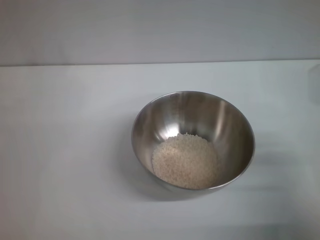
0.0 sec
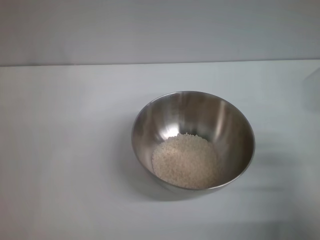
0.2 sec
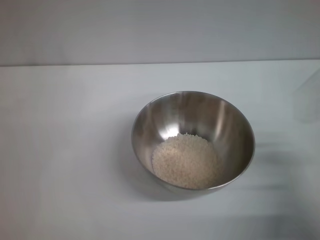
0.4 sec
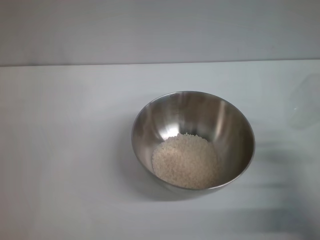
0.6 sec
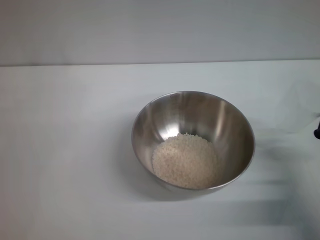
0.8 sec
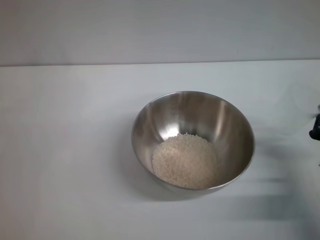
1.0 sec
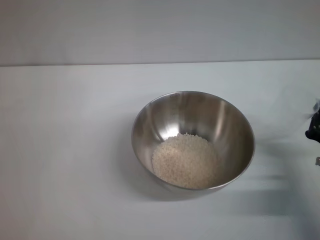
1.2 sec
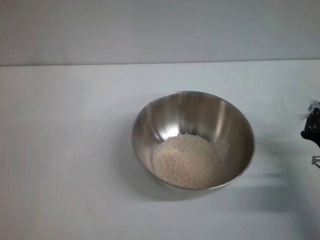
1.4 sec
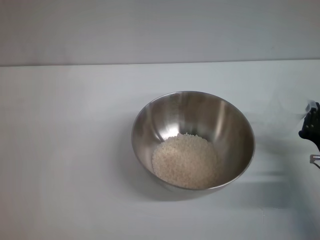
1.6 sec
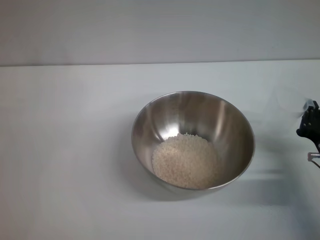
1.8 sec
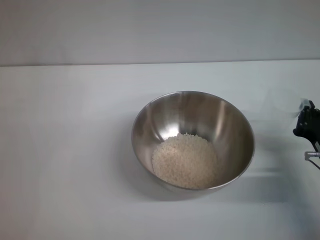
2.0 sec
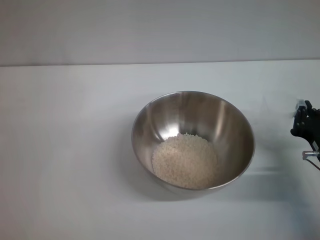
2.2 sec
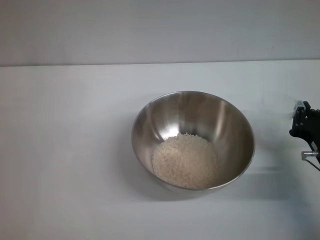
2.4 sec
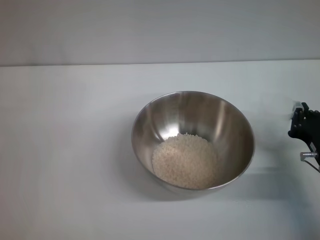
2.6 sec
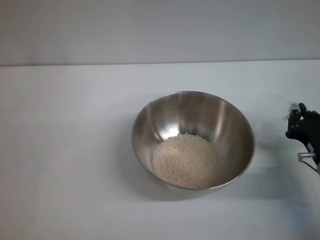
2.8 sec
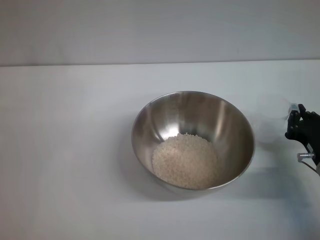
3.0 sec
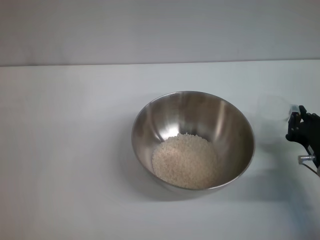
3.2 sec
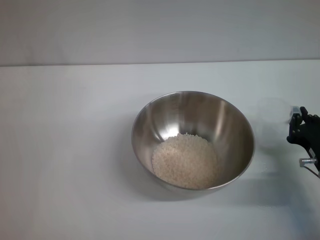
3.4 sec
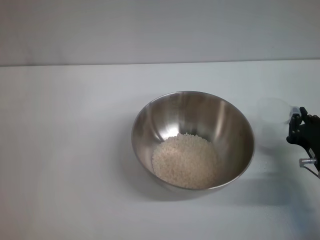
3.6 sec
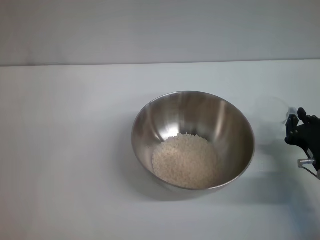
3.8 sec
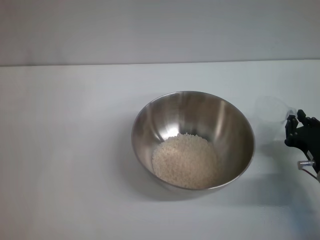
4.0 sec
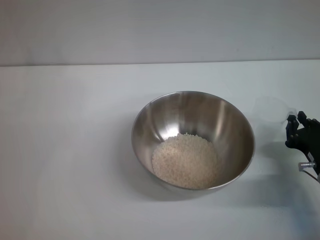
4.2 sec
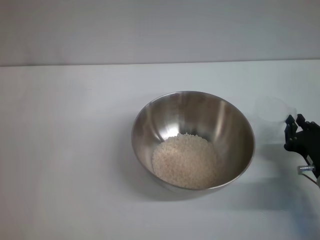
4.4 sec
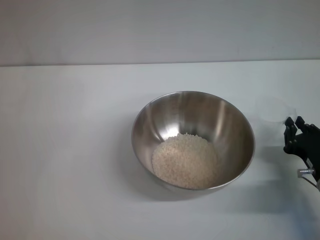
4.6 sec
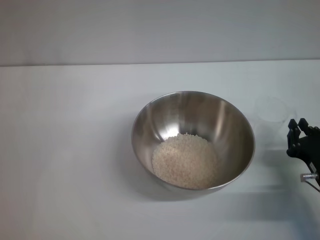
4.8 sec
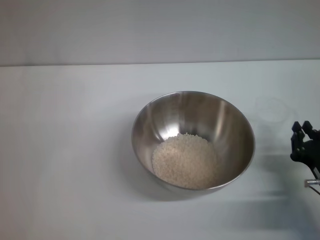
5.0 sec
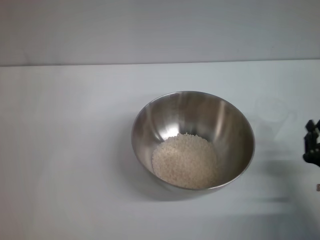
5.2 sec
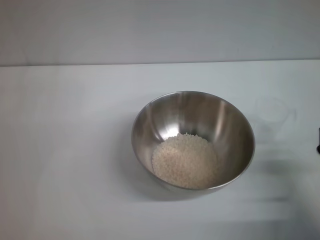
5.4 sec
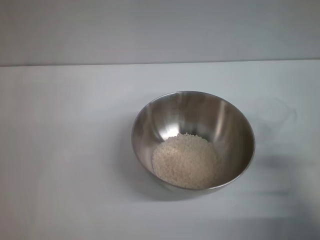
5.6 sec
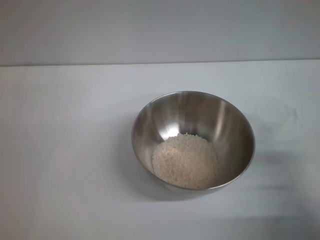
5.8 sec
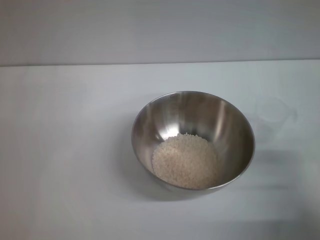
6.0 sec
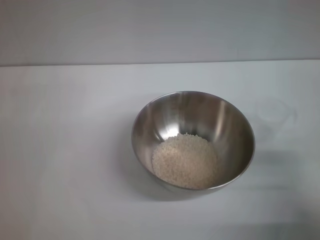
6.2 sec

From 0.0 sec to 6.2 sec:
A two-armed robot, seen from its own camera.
Task of the whole recording: Place the bowl in the middle of the table with one hand and pour the rice from the grain cup into it with the other hand.
Step, from 0.0 sec to 5.2 sec: Place the cup on the table with the right gripper.
From 0.0 sec to 1.6 sec: The right gripper ends up approximately 5 cm from where it was.
From 1.6 sec to 4.6 sec: The grippers make only small movements.
From 4.6 sec to 6.2 sec: The right gripper goes roughly 5 cm upward, and opens its fingers.

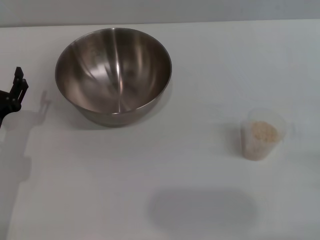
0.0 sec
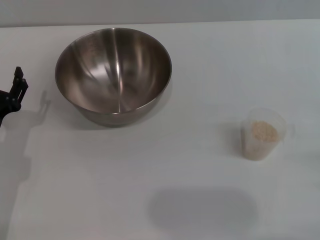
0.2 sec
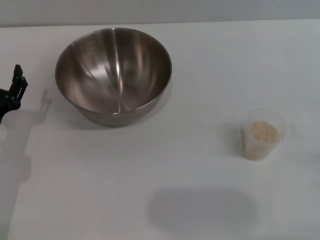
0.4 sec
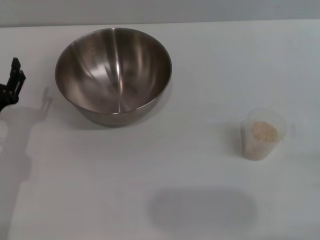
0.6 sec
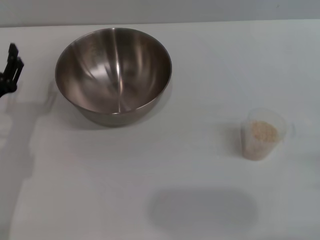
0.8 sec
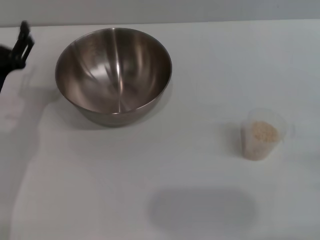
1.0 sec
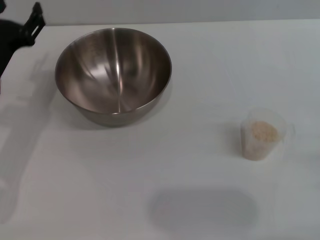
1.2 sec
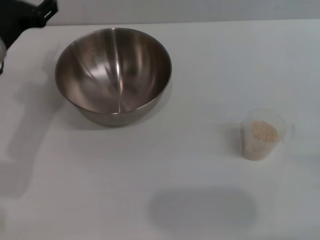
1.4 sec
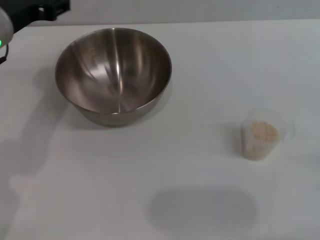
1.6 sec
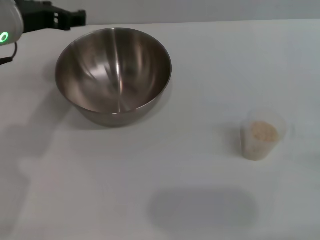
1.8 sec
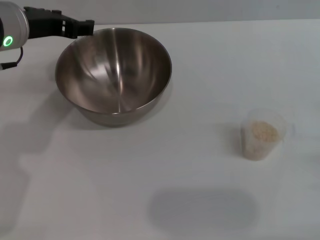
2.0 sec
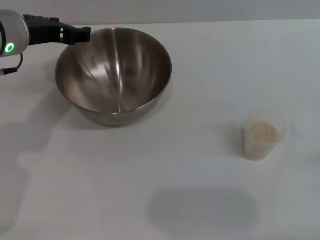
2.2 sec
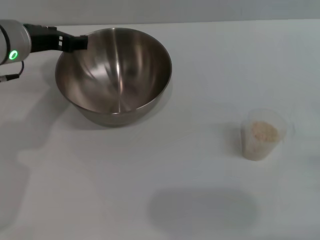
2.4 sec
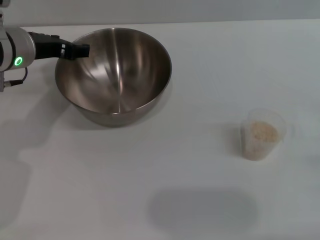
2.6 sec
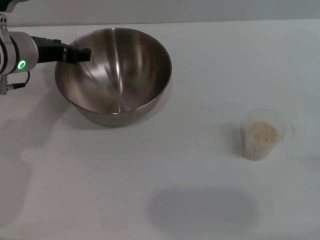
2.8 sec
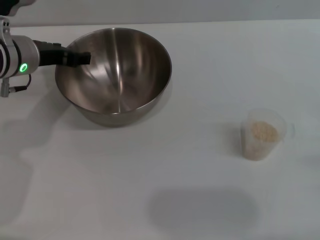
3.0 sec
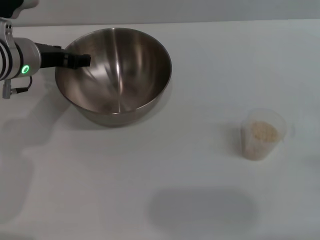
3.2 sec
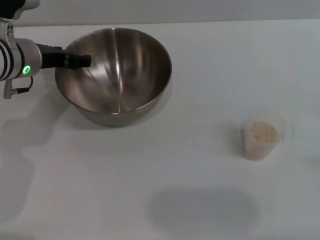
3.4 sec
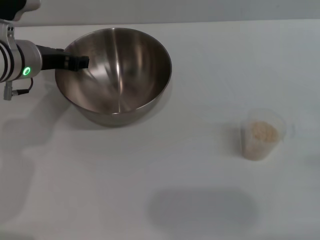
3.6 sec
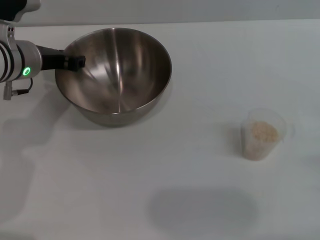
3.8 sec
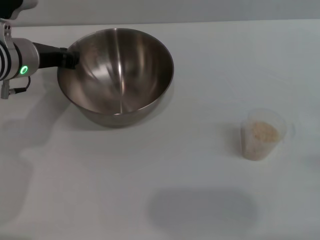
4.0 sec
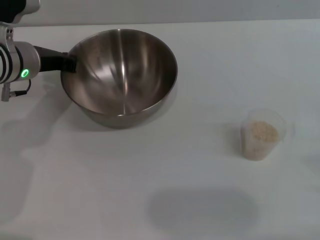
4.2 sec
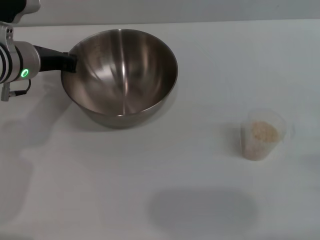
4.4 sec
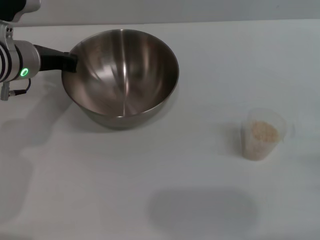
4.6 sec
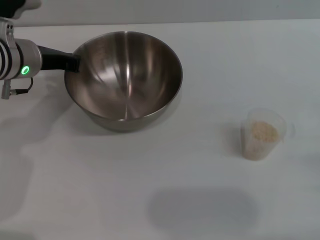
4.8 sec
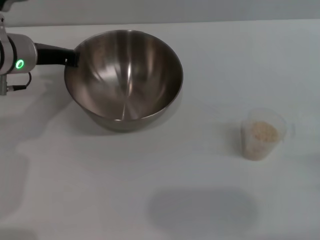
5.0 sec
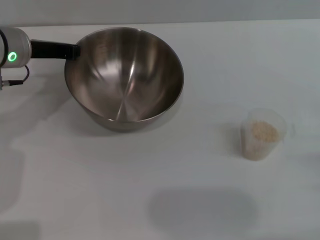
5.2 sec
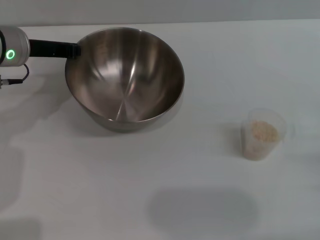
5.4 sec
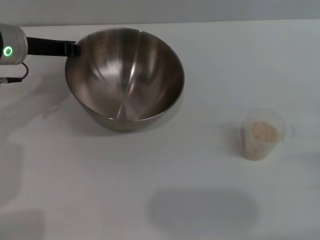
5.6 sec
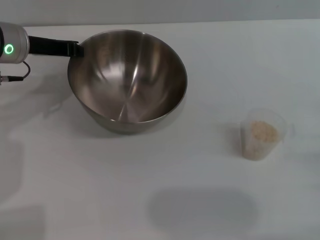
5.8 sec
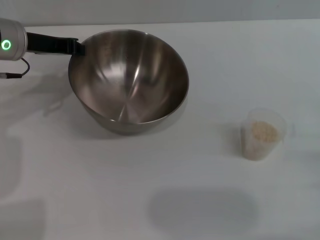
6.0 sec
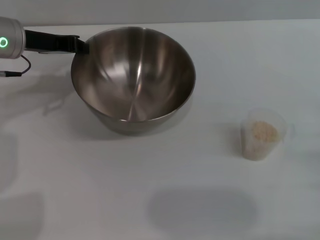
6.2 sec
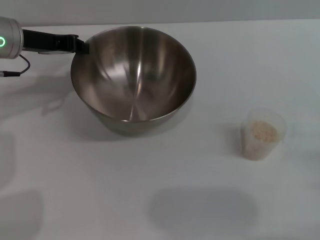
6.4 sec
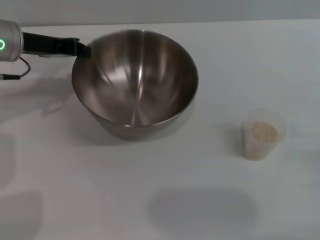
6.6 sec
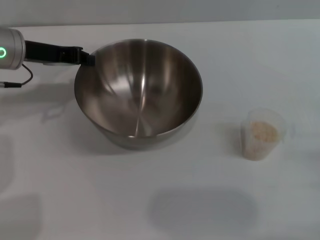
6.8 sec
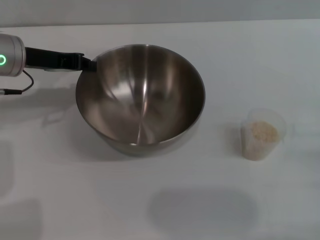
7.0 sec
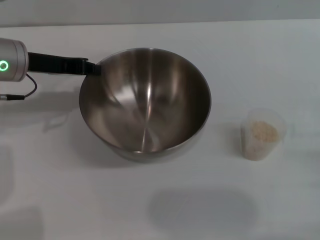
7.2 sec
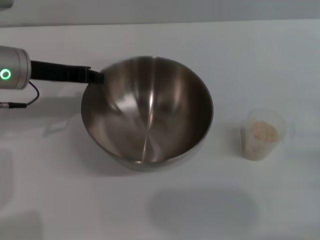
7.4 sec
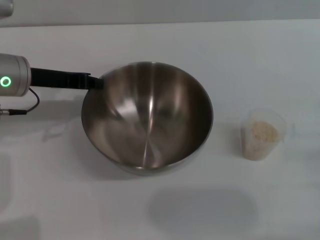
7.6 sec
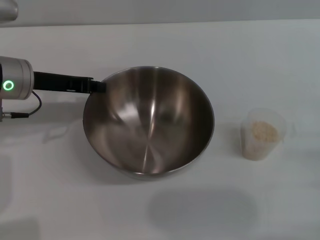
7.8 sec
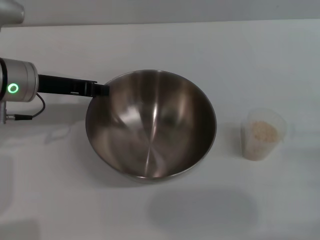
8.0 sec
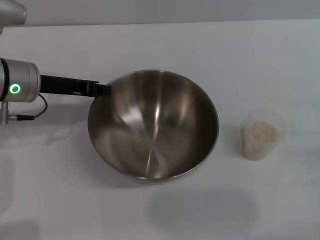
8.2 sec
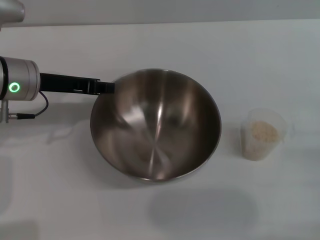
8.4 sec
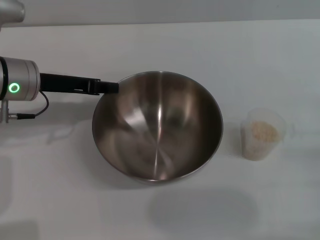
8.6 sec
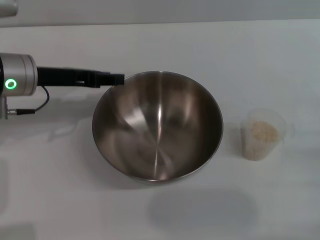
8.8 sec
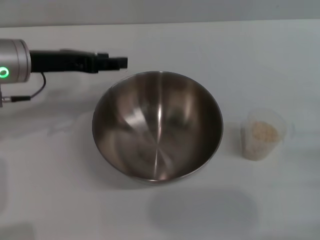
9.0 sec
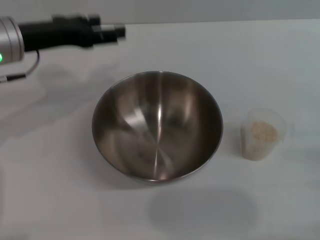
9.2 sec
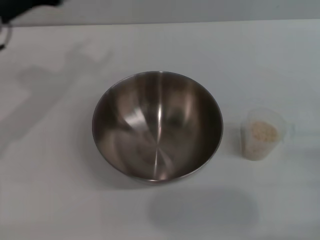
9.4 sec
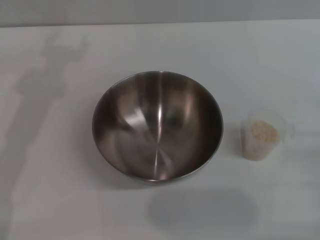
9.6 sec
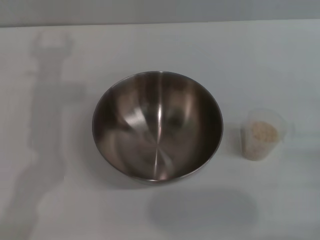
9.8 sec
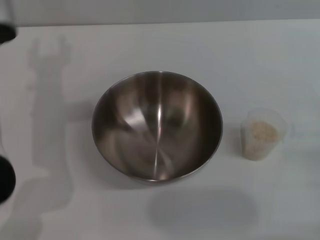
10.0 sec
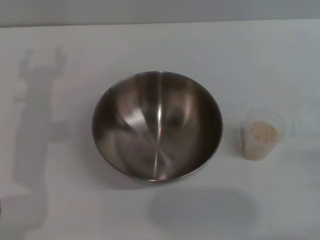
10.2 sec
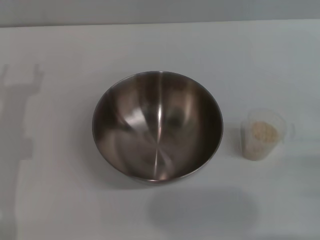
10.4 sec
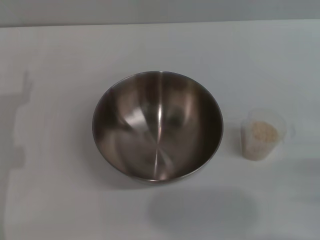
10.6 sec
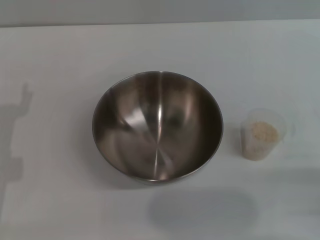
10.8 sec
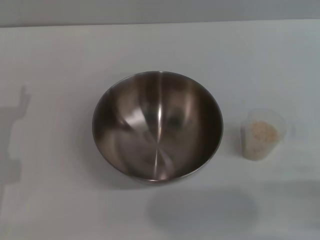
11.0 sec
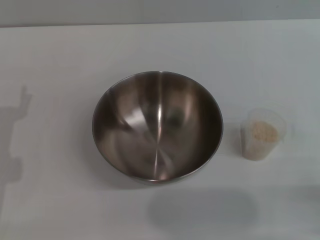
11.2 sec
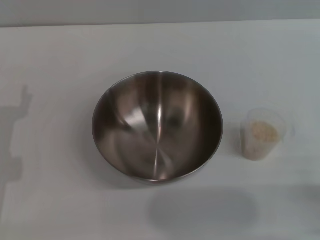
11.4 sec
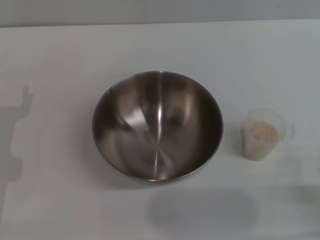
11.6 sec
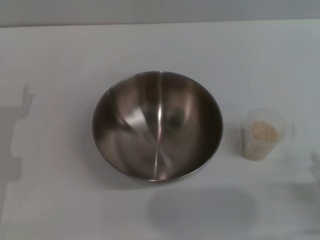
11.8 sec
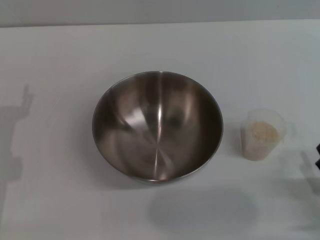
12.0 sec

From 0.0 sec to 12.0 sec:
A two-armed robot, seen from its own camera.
Task of the whole recording: Place the bowl in the middle of the table with one hand and pour the rice from the grain cup into it with the other hand.
Step, from 0.0 sec to 7.0 sec: Pick up the bowl with the left gripper.
Step, from 7.4 sec to 9.2 sec: Place the bowl in the center of view with the left gripper.
From 0.0 sec to 1.6 sec: The left gripper heads upward and forward, covering approximately 20 cm.
From 1.6 sec to 3.0 sec: The left gripper moves downward, some 5 cm.
From 3.0 sec to 4.4 sec: The left gripper closes up.
From 7.6 sec to 9.0 sec: The left gripper opens its fingers.
From 9.0 sec to 10.4 sec: The left gripper shifts approximately 10 cm downward and backward, and opens its fingers.
From 10.4 sec to 12.0 sec: The right gripper changes place by approximately 5 cm.

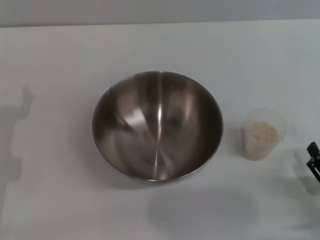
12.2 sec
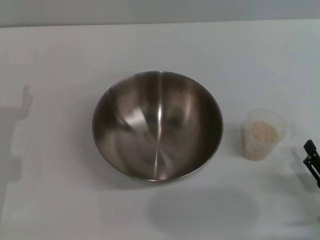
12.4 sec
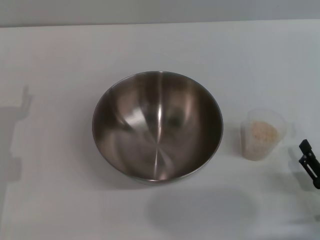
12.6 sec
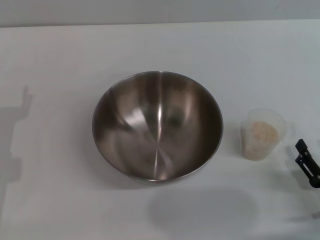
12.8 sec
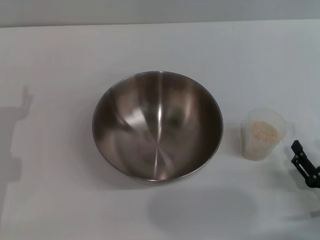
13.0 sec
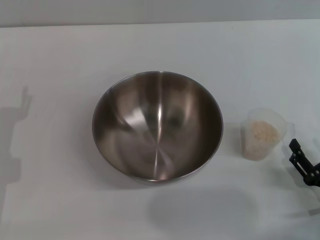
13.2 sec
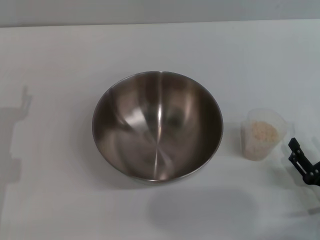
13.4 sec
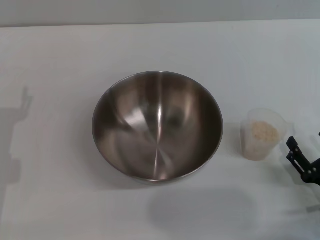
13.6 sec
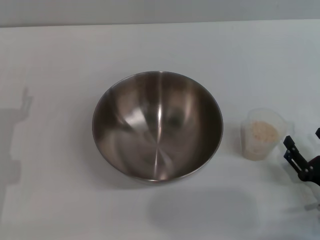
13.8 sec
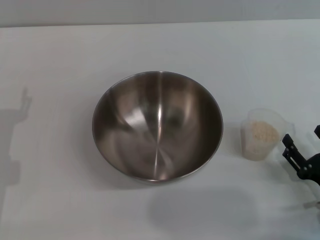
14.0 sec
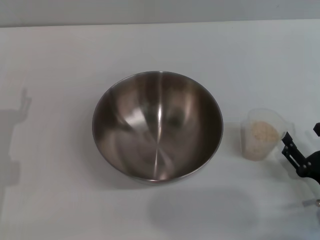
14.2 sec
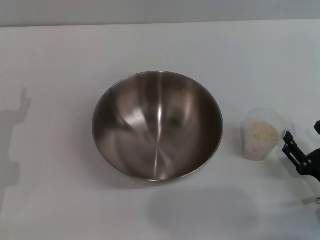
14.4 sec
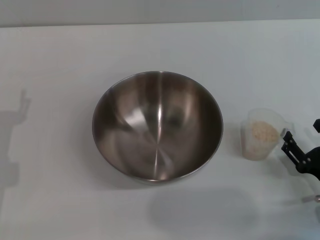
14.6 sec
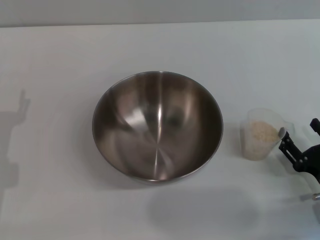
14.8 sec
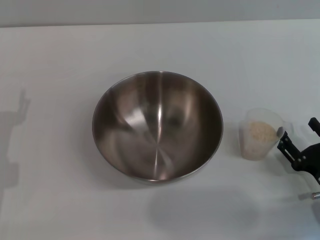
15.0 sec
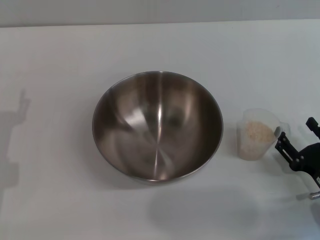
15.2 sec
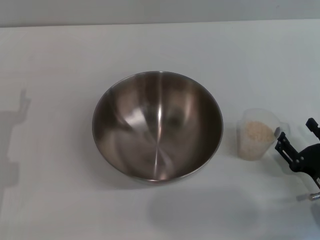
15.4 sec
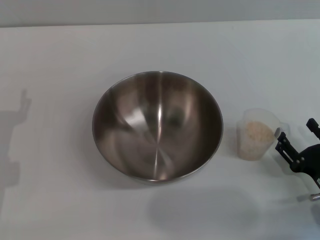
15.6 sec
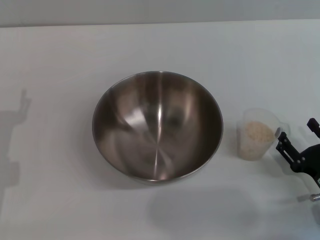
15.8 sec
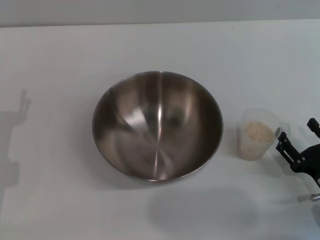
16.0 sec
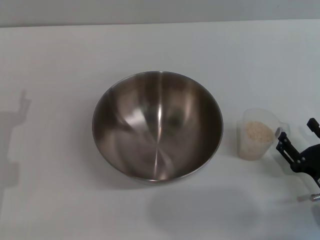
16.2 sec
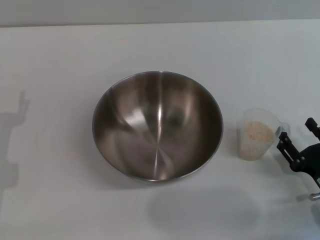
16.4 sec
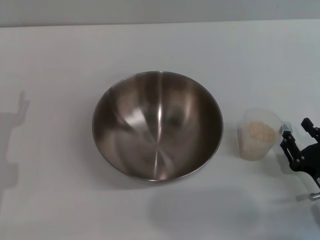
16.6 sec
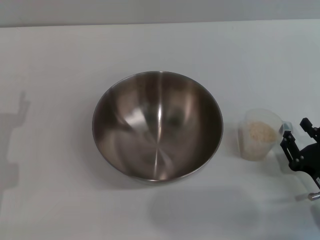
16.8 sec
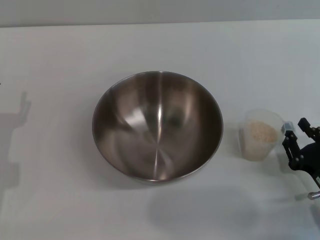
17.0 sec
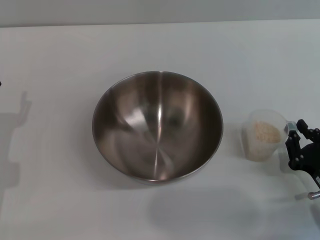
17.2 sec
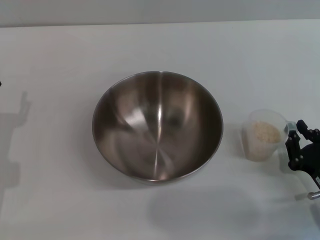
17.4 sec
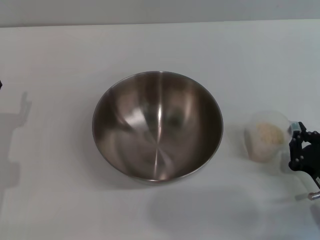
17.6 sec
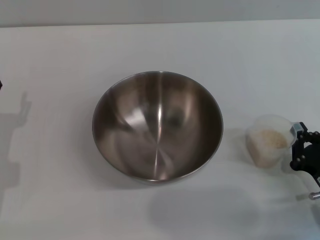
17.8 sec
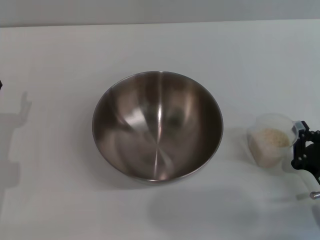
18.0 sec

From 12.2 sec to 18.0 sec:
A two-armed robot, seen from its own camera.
Task of the whole recording: Place the bowl in the middle of the table with one hand and pour the rice from the grain cup into it with the other hand.
From 12.2 sec to 15.0 sec: There are only small adjustments of the grippers.
From 15.0 sec to 16.6 sec: Neither gripper changes place.
From 16.6 sec to 18.0 sec: The right gripper closes.
